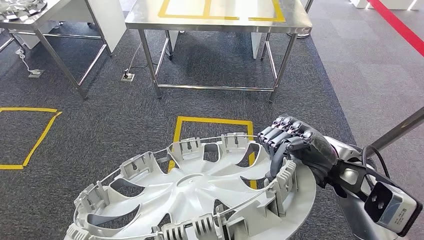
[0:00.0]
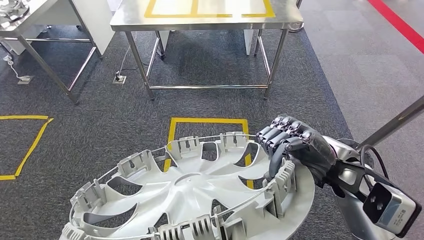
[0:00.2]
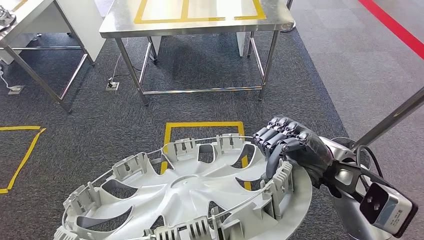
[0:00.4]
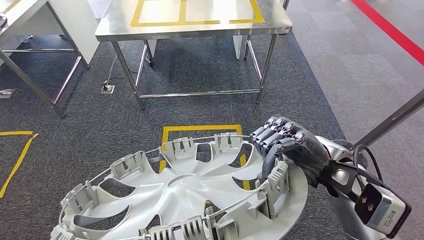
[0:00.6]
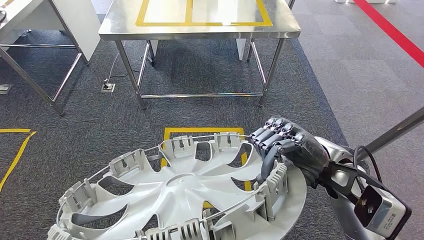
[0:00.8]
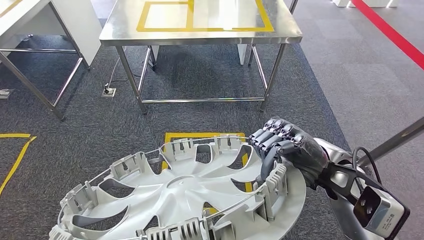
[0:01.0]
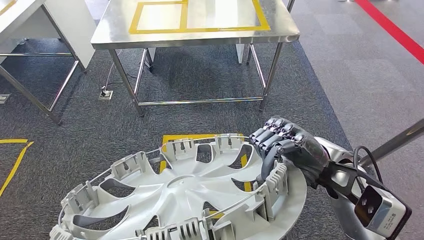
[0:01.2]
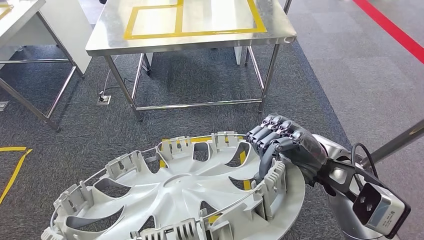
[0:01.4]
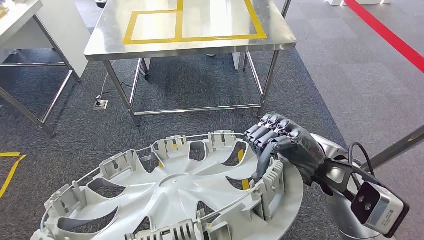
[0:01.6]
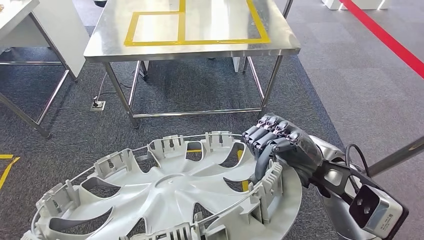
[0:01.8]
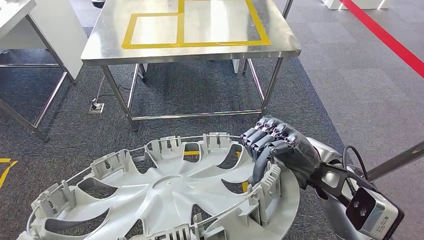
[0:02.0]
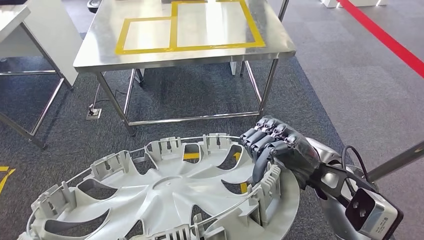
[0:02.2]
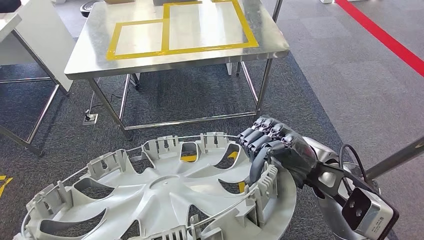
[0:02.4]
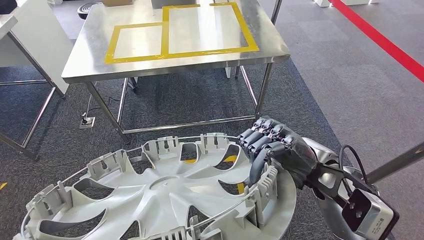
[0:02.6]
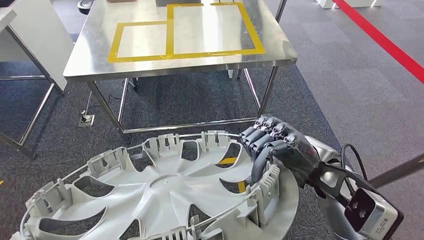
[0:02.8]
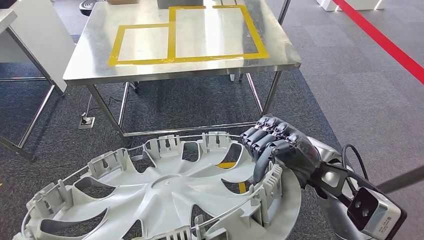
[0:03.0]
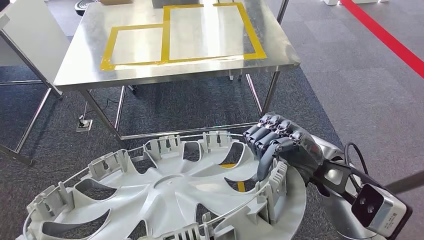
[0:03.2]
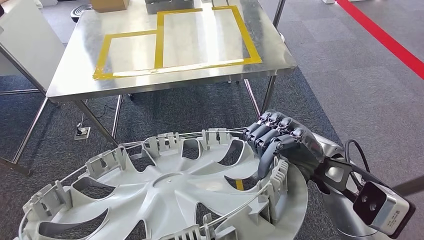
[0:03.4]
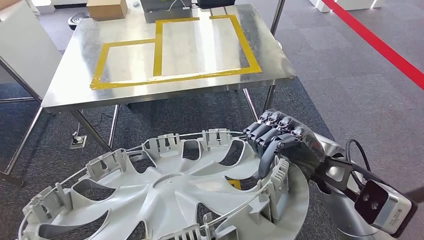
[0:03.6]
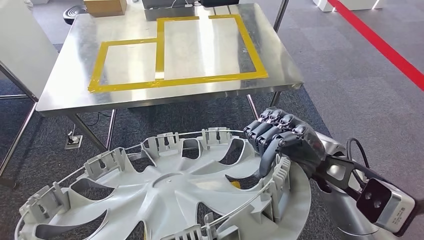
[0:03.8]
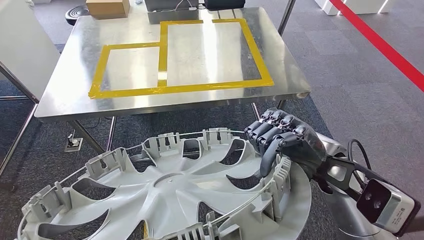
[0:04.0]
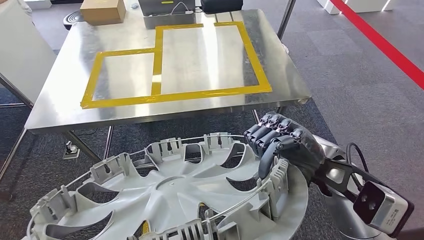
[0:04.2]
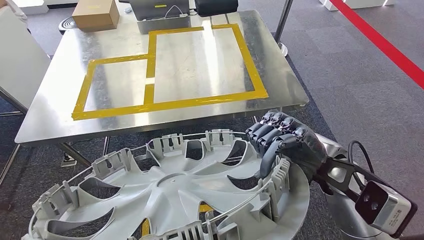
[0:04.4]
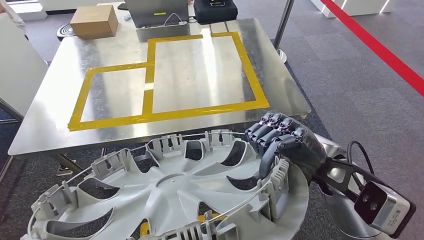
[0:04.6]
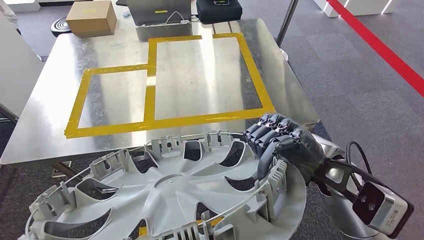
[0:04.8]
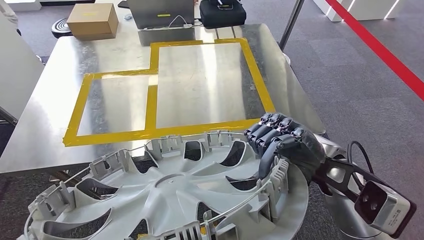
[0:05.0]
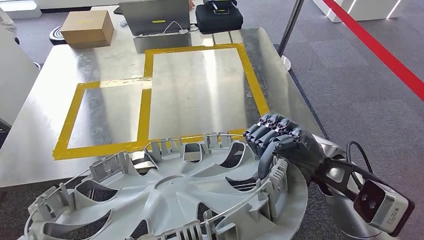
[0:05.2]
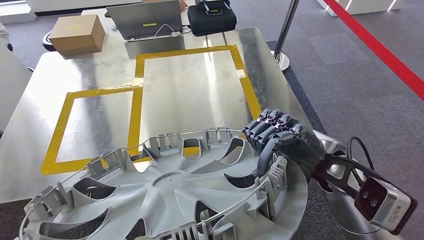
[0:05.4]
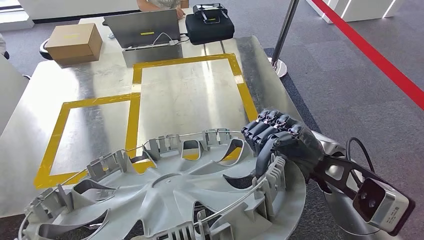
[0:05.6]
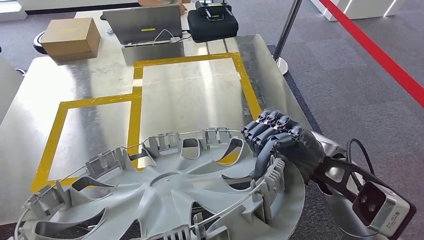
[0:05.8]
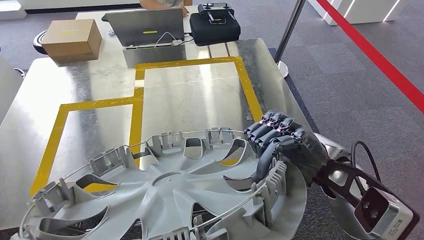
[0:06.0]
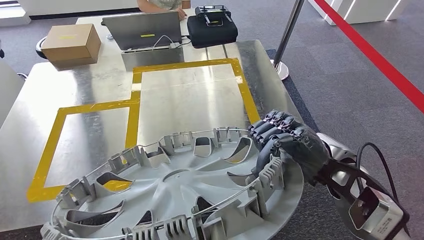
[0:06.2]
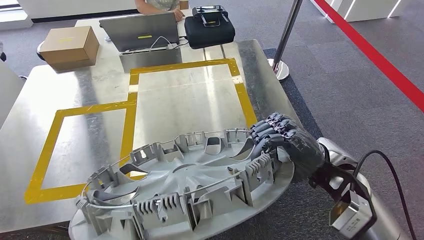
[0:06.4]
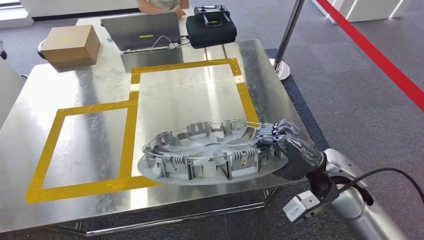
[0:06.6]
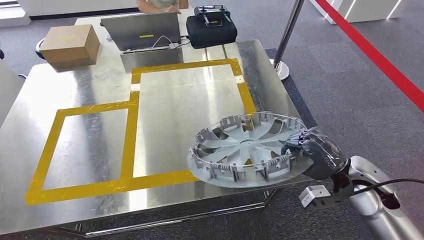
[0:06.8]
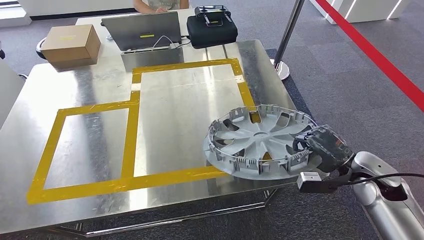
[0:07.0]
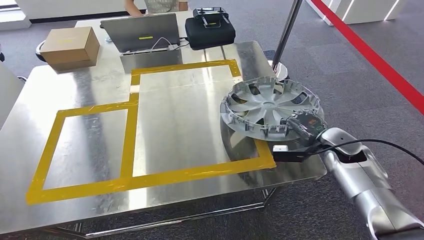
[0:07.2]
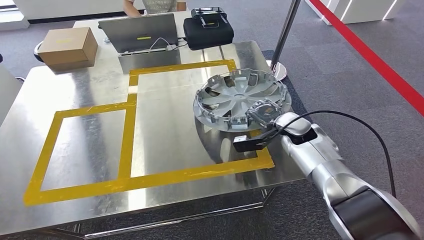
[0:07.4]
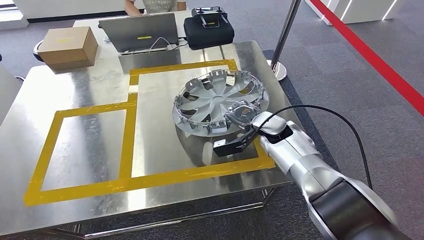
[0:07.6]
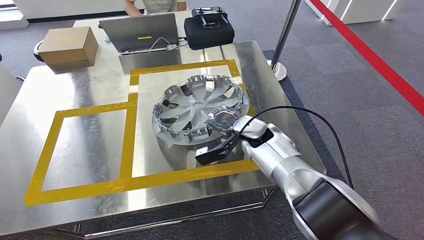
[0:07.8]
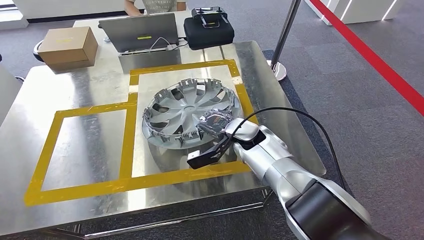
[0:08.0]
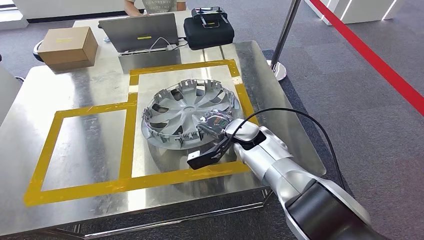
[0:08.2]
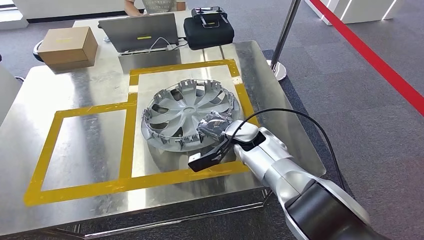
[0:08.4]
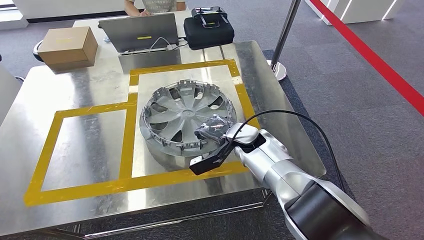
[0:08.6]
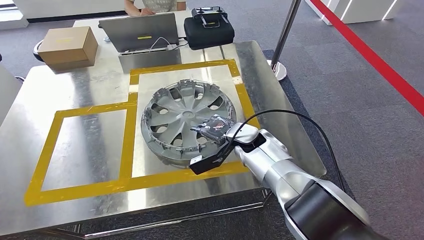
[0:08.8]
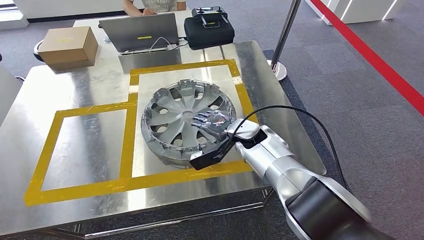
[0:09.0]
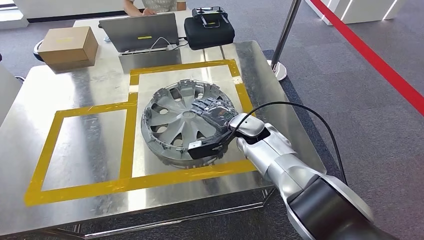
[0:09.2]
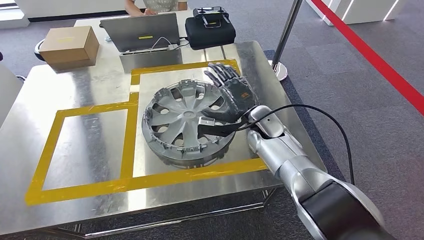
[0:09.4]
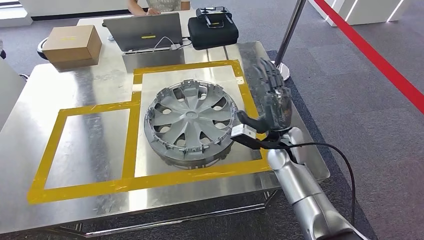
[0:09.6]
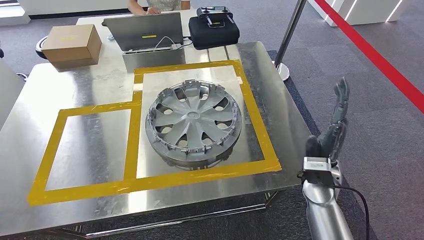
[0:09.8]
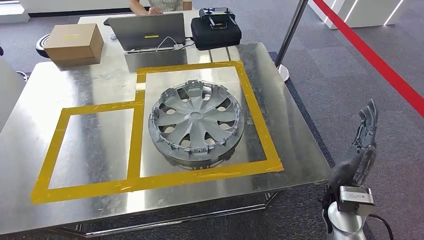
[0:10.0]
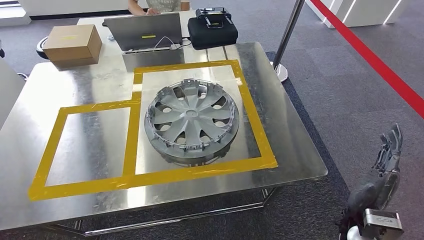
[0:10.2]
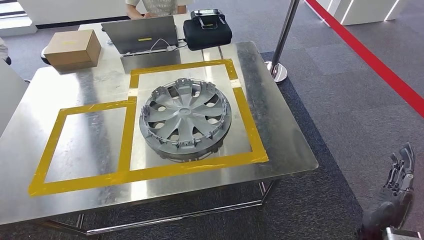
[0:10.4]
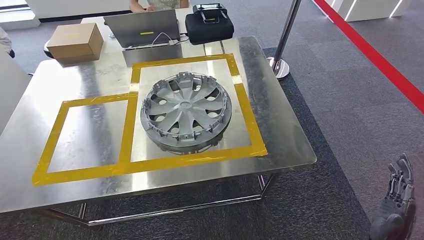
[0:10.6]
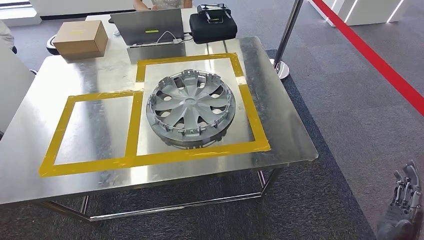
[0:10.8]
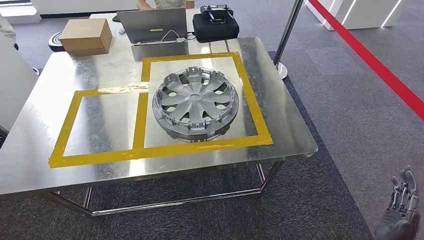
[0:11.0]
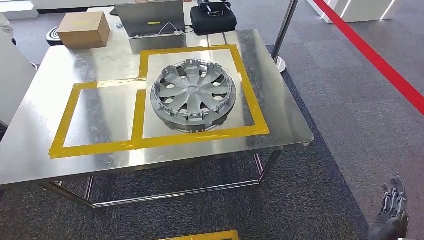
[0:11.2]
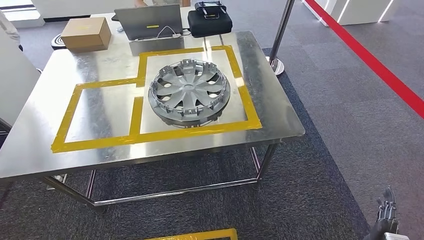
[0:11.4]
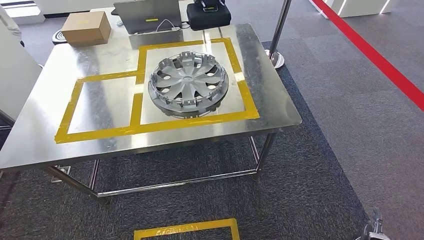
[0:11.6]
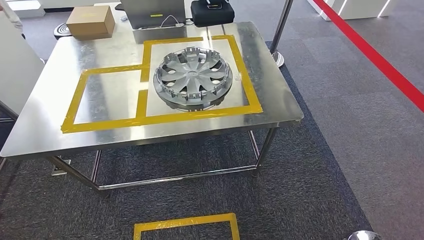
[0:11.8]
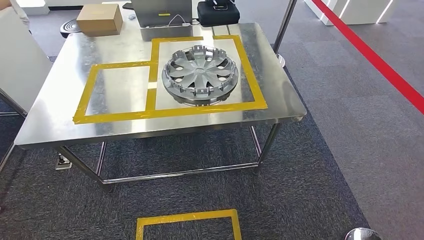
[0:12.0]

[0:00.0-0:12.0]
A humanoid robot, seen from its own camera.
Step, 0:00.0 to 0:05.8: Move the small component to the workbench.
Step, 0:06.0 to 0:10.2: Insert the small component into the corresponding slot on the workbench.
0:07.6 to 0:09.0: The right hand travels to the left by approximately 5 cm.

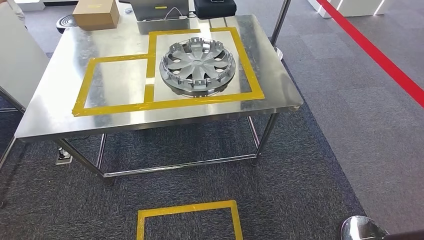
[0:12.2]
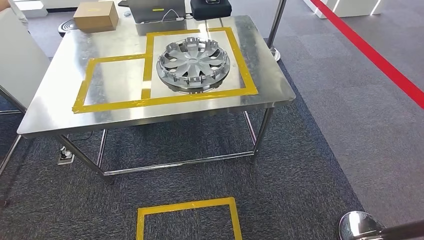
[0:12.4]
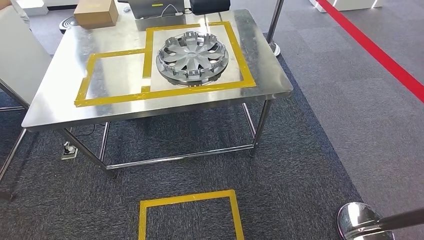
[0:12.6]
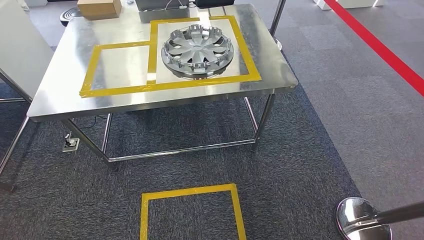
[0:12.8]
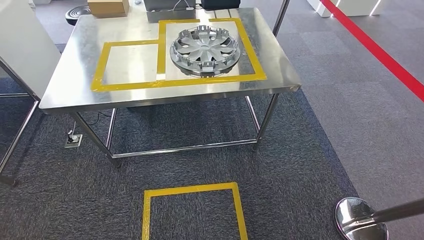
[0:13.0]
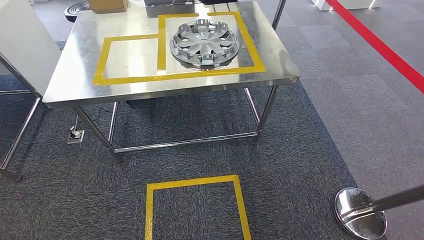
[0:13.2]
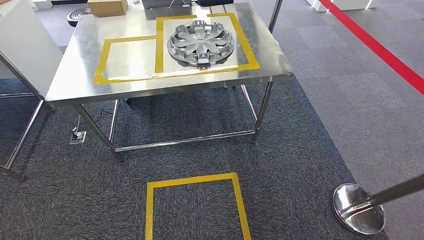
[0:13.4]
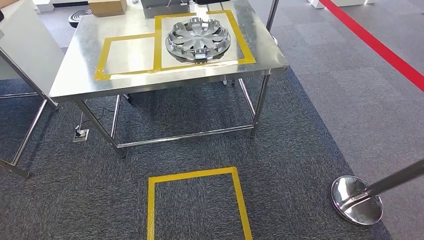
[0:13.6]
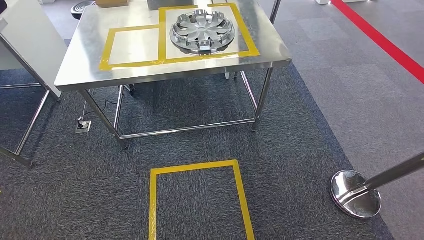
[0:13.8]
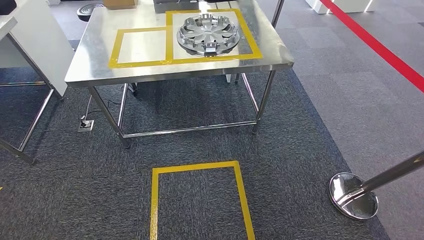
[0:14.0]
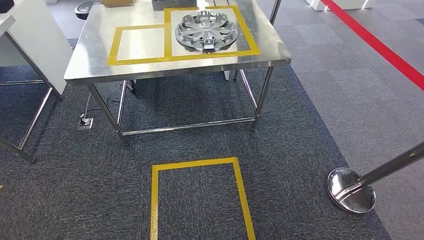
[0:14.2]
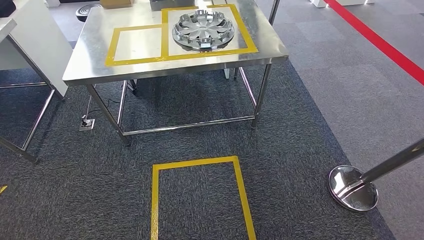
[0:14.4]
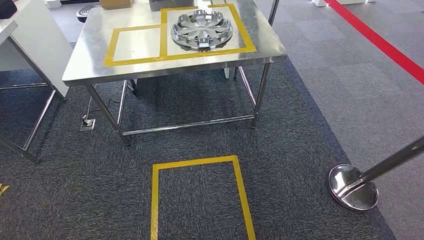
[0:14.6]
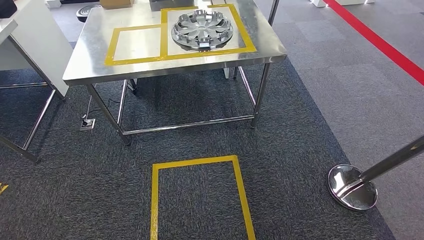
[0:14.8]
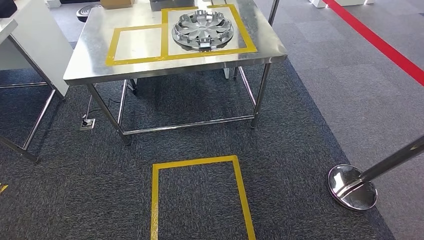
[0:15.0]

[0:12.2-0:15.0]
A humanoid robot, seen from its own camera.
Step, 0:12.2 to 0:15.0: Return to the initial position at the workbench.
